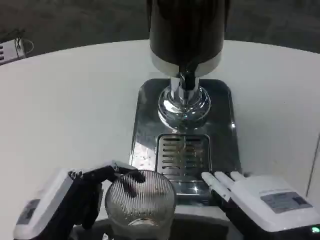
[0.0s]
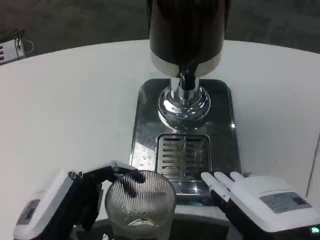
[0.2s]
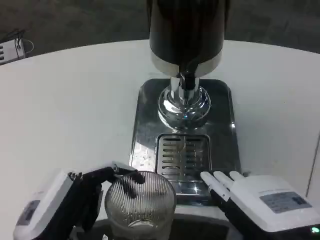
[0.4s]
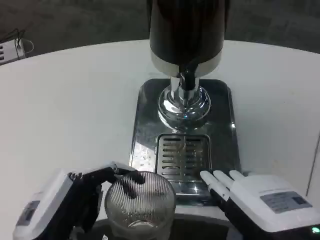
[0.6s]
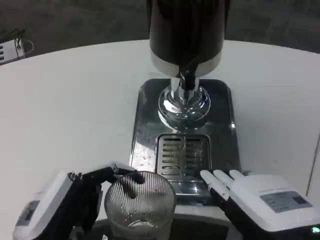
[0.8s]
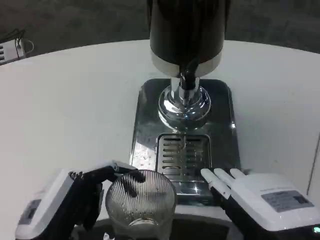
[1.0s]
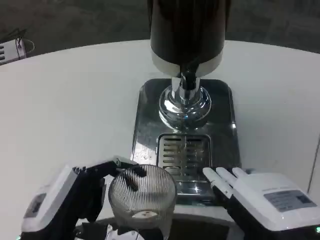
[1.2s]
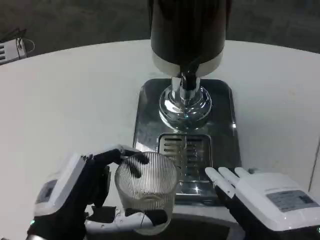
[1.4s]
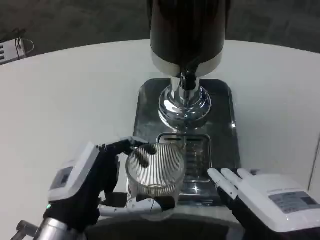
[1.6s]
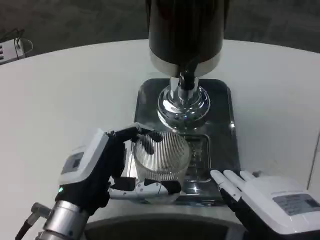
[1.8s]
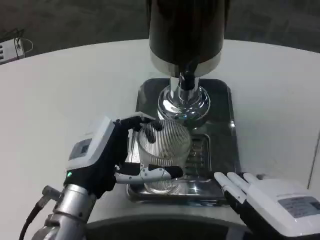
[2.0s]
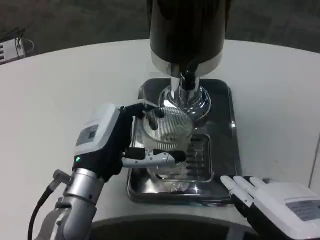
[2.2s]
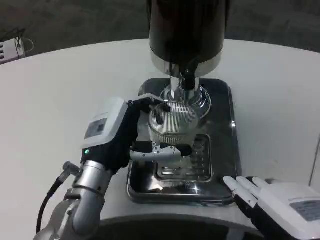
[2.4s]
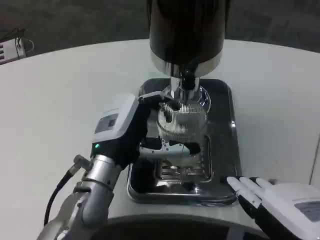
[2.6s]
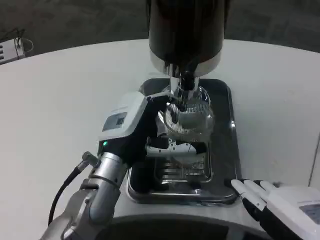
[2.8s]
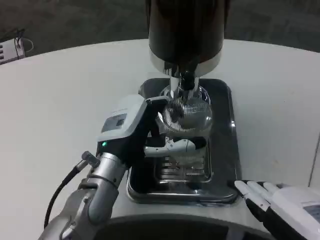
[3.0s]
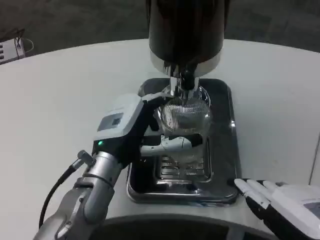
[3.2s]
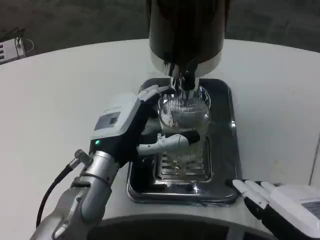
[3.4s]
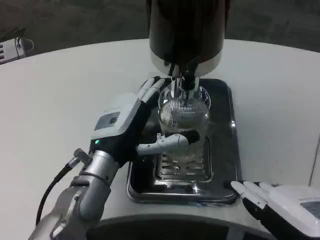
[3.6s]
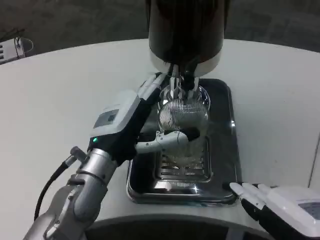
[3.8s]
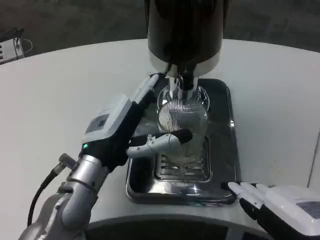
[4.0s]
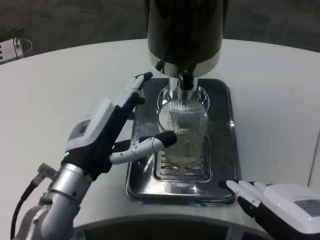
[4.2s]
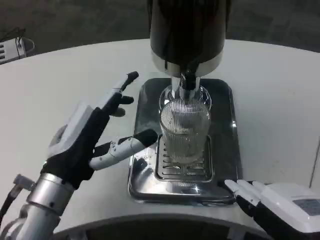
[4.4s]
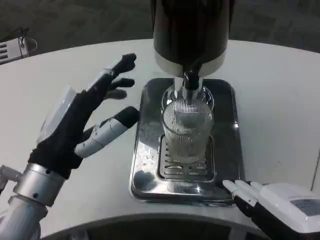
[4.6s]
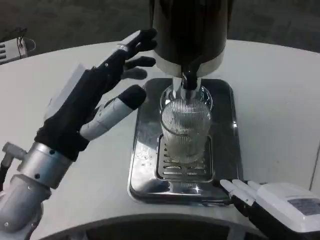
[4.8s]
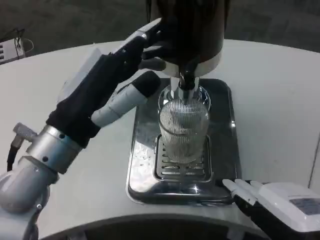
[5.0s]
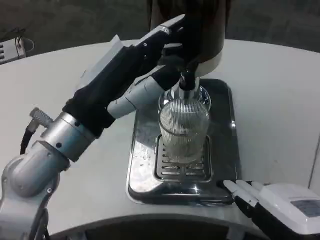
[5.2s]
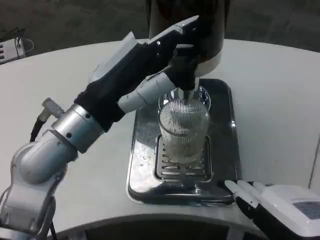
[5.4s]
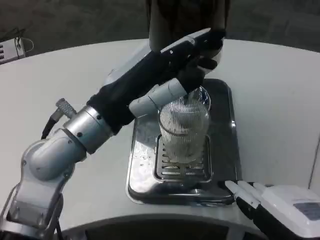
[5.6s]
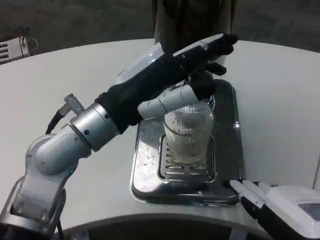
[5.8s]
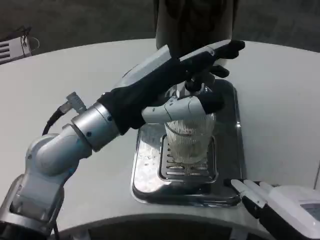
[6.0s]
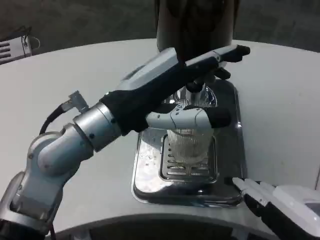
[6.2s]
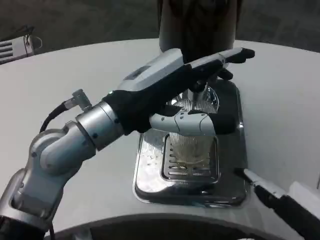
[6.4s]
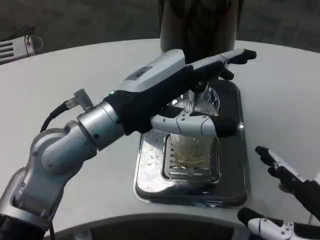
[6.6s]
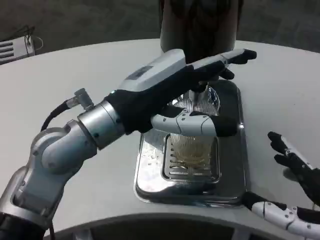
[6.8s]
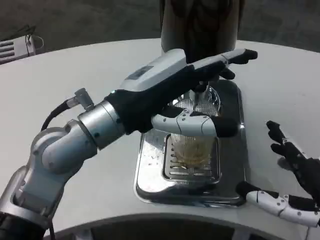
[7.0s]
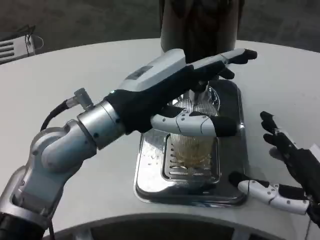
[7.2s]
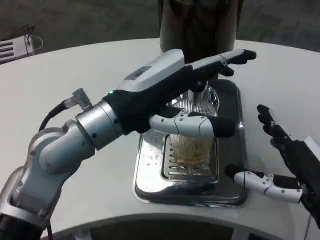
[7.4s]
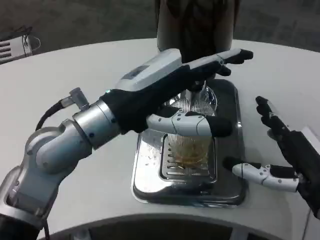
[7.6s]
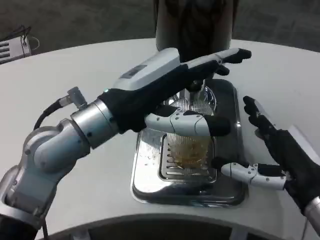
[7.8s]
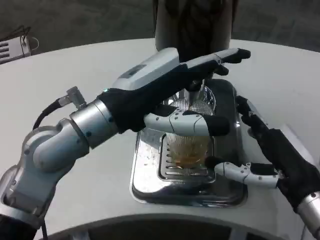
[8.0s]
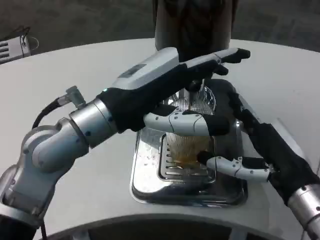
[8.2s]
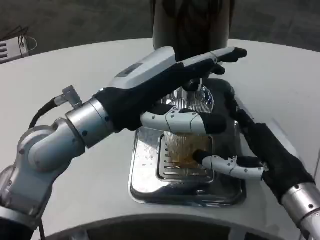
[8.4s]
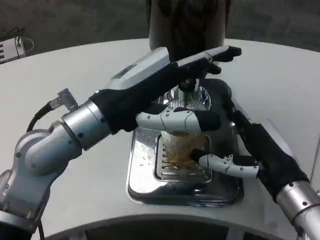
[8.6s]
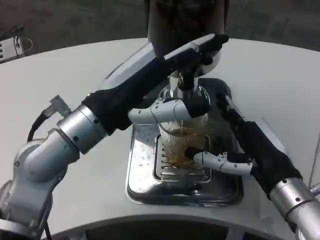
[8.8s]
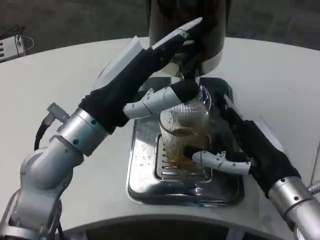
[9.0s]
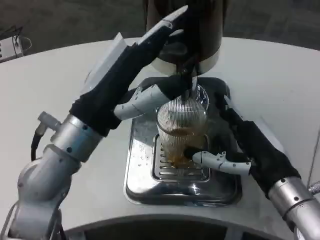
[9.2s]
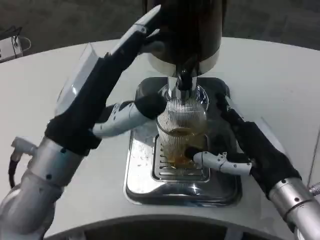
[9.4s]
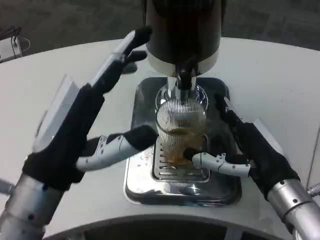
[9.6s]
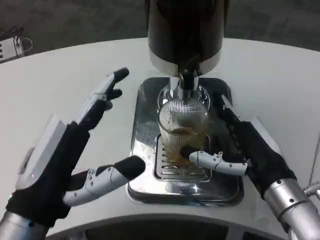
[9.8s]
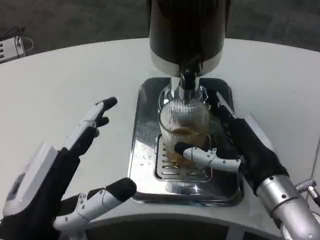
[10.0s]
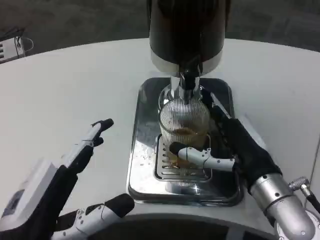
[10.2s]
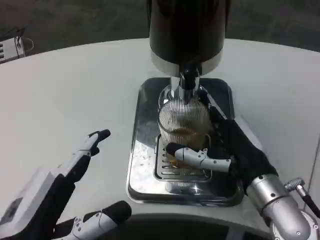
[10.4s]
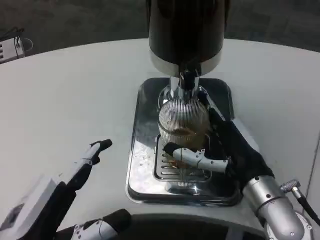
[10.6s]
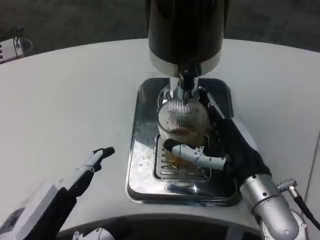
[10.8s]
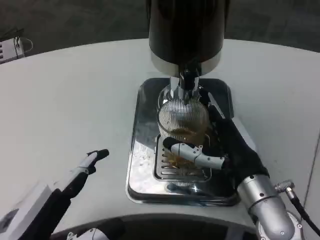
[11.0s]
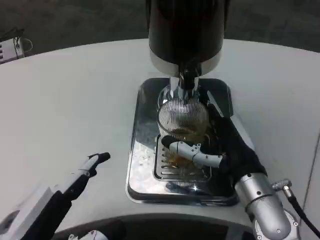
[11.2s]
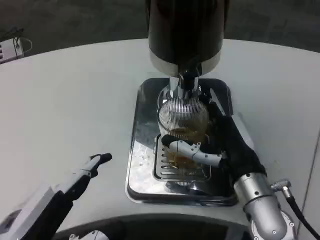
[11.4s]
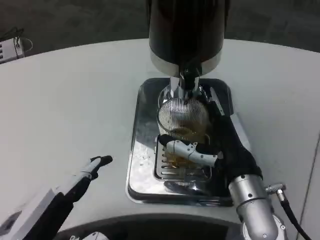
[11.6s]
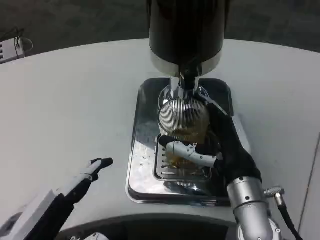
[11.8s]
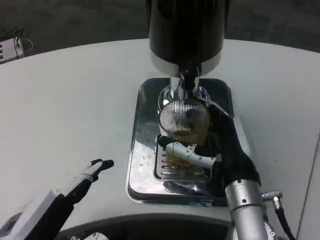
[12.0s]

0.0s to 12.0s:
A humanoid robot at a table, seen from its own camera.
Task of the whole recording: Grasp the cup under the faucet to collect the drink, then remove the cup.
0.0s to 1.6s: The left hand moves forward, about 5 cm.
1.6s to 3.0s: The left hand moves forward and to the right, approximately 10 cm.
3.0s to 4.4s: The left hand shifts some 10 cm to the left and backward.
4.4s to 6.0s: The left hand heads upward, covering about 10 cm.
6.0s to 7.6s: The right hand is displaced forward by approximately 10 cm.
7.6s to 9.0s: The right hand shifts by approximately 5 cm.
9.0s to 10.4s: The left hand shifts roughly 20 cm backward and downward.
10.4s to 12.0s: The right hand ends up approximately 5 cm from where it was.

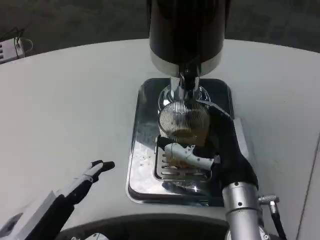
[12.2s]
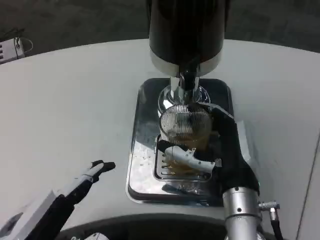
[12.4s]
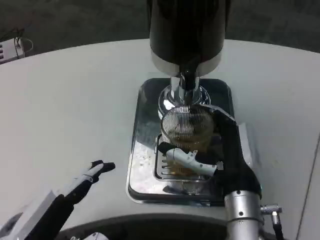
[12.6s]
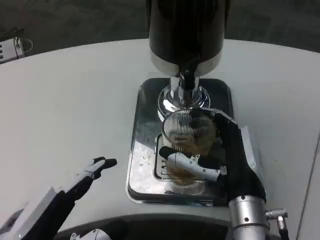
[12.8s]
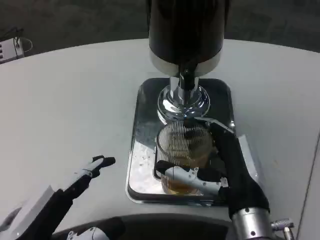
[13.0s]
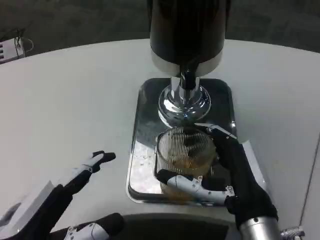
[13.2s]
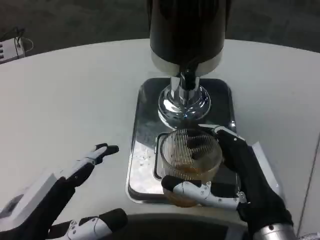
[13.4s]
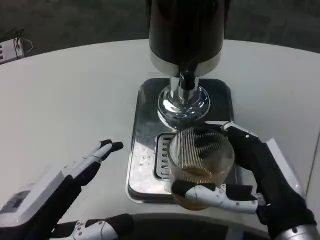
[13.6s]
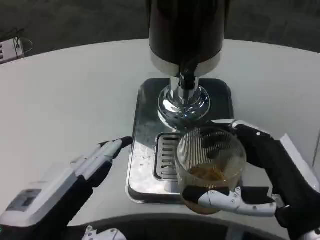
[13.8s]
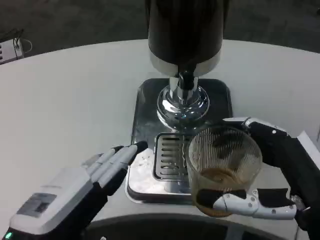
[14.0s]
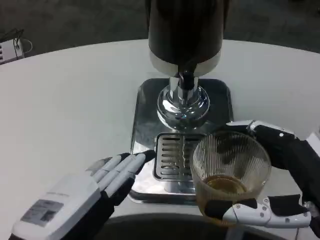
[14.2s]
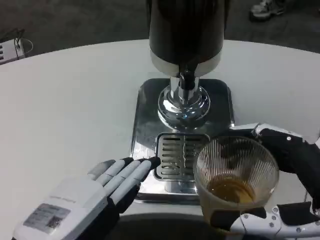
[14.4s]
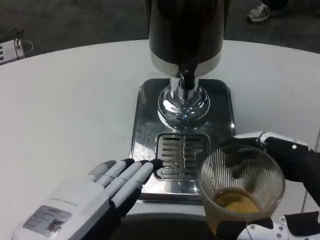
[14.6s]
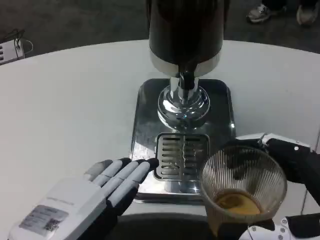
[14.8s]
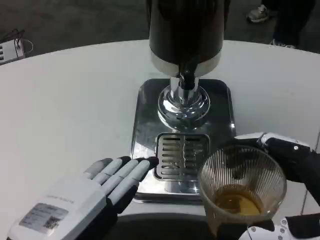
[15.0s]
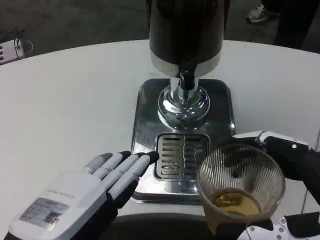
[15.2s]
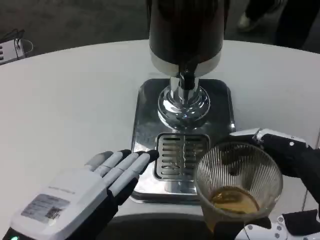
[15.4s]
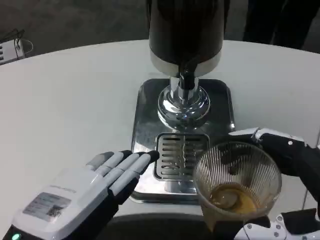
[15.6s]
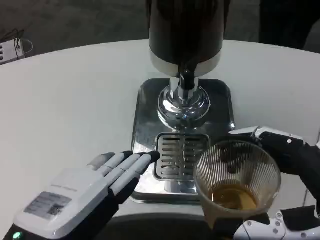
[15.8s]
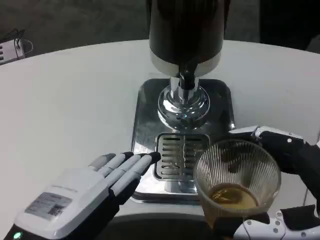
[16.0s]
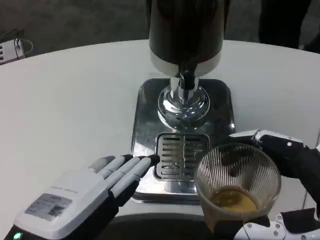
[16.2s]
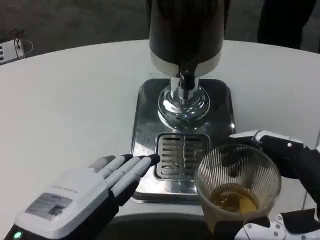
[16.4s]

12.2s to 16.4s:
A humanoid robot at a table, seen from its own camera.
Task of the whole recording: Grasp the cup under the faucet to collect the drink, then remove the cup.
12.2s to 13.6s: The right hand shifts some 10 cm backward and to the right.
13.6s to 15.0s: The left hand shifts by roughly 5 cm. The right hand travels backward and to the right by some 10 cm.
15.0s to 16.4s: There are only small adjustments of the hands.

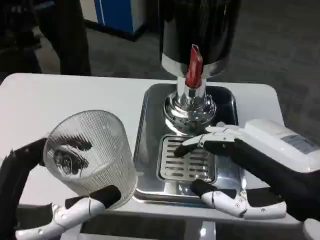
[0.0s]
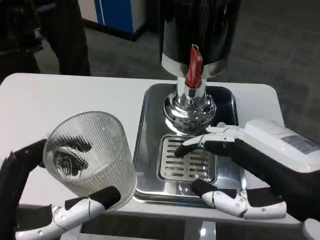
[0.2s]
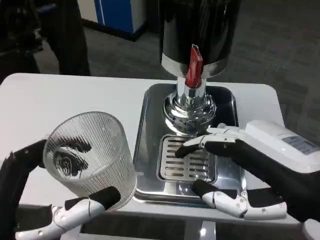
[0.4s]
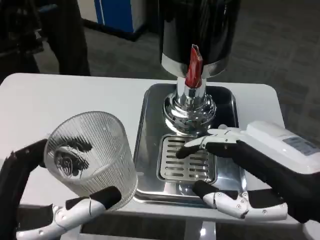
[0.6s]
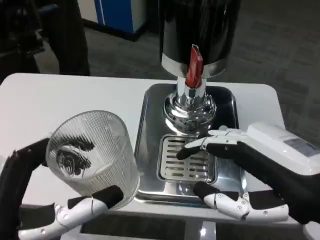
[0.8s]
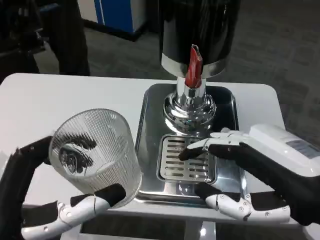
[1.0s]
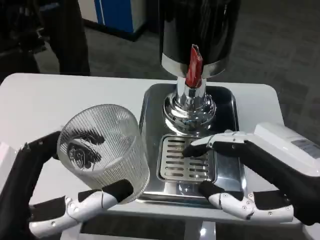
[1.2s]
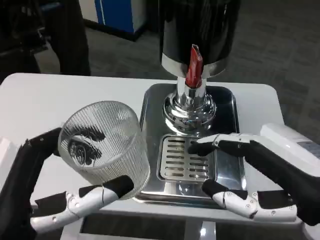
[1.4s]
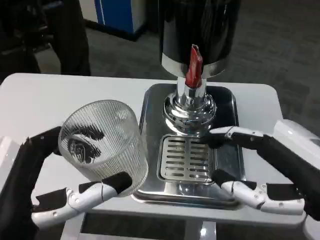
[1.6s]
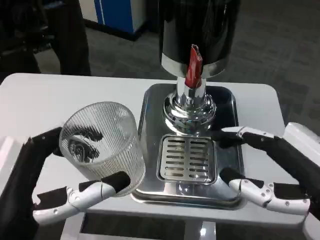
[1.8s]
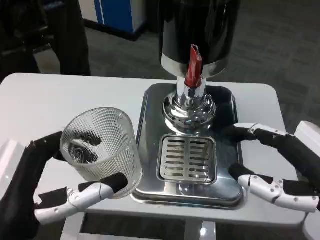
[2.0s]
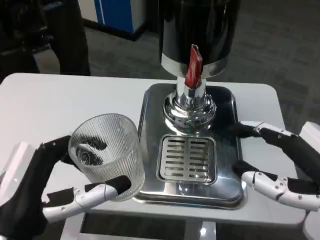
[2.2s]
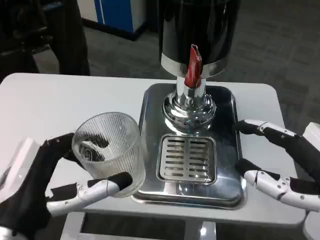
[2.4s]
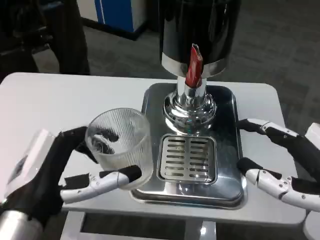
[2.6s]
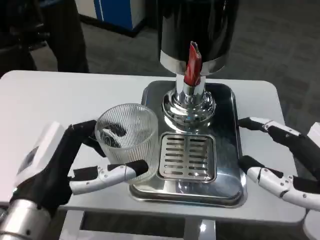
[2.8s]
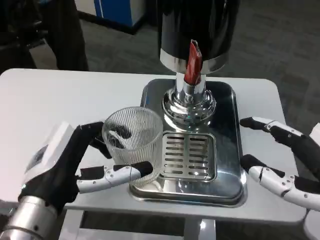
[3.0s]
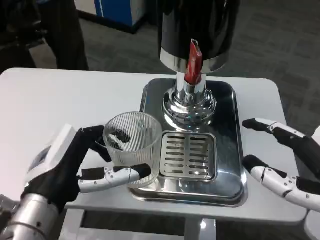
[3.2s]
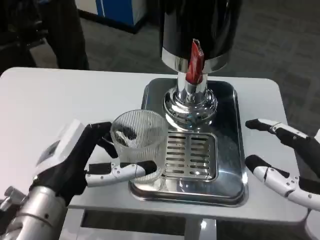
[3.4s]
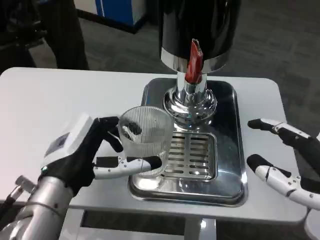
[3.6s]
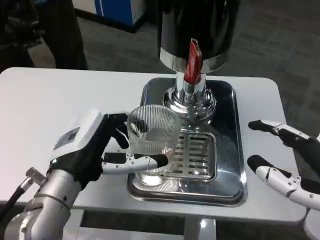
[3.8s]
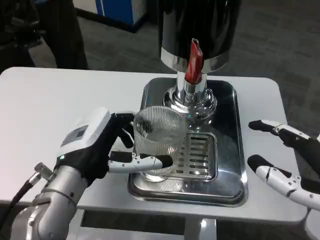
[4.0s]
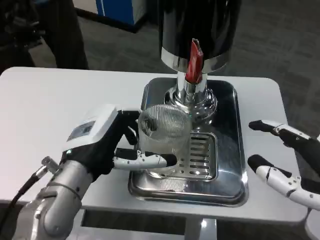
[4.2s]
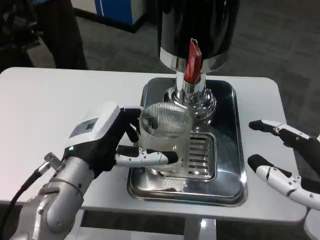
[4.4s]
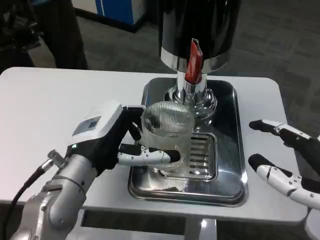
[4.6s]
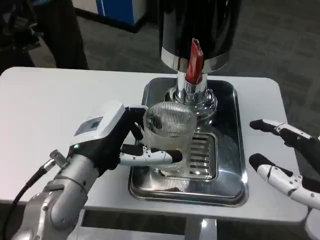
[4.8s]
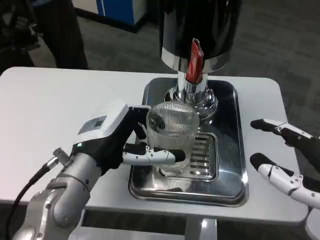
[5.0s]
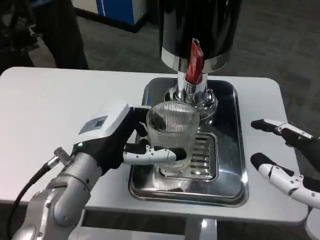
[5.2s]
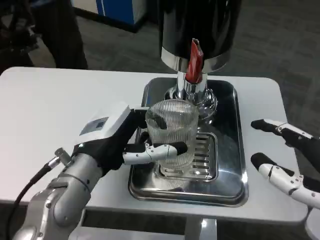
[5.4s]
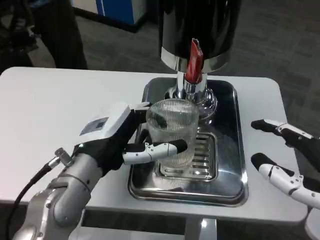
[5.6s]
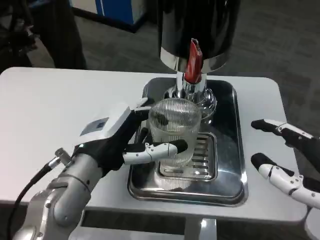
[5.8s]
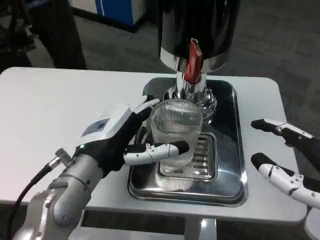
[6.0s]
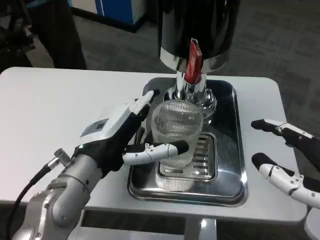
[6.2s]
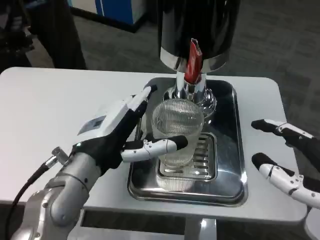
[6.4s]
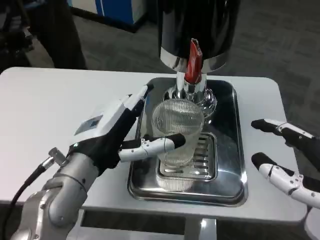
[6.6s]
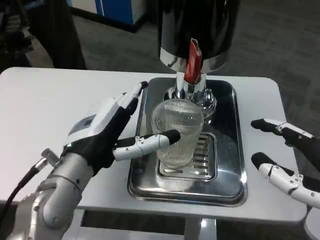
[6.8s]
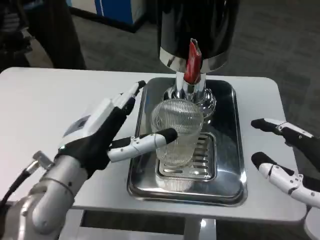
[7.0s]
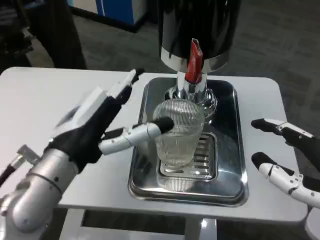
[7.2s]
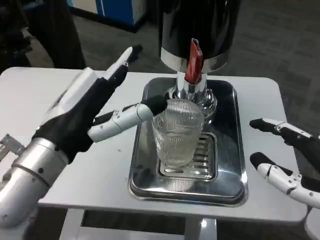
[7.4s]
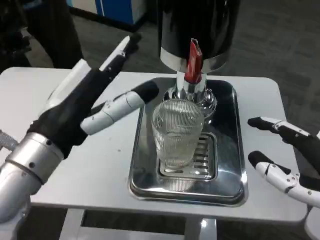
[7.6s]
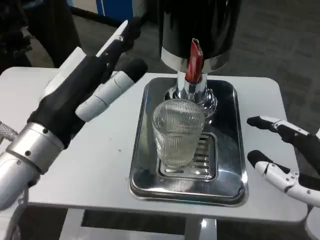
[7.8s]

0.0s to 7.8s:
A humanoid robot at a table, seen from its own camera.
Task of the whole recording: Grasp the cup under the faucet to collect the drink, then remove the cup.
1.6s to 3.2s: The left hand heads forward, covering some 10 cm.
3.2s to 4.6s: The left hand travels forward by approximately 5 cm.
4.6s to 6.2s: Both hands stay put.
6.2s to 7.8s: The left hand is displaced upward by roughly 5 cm.
